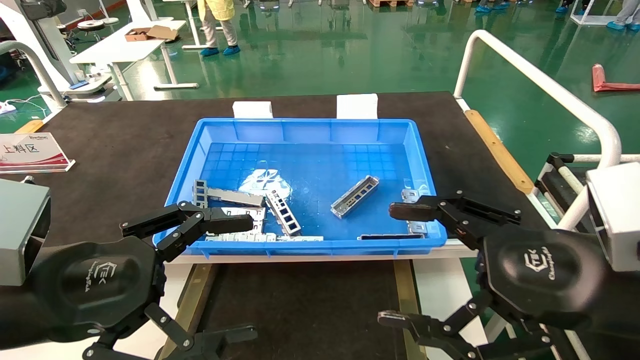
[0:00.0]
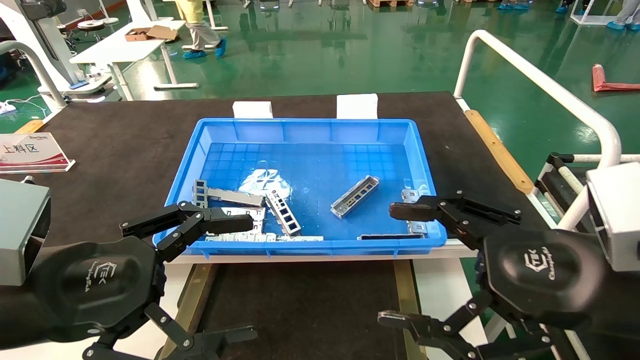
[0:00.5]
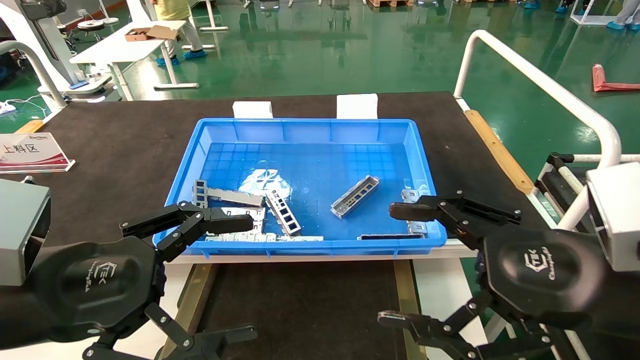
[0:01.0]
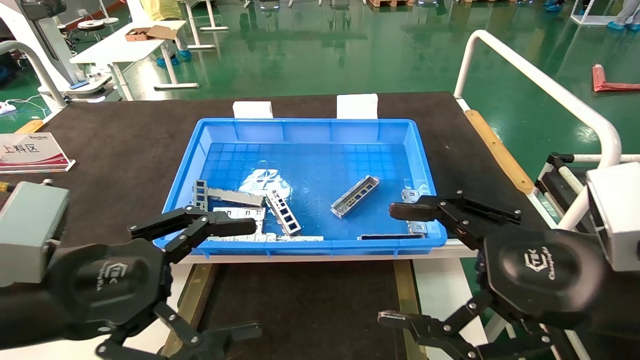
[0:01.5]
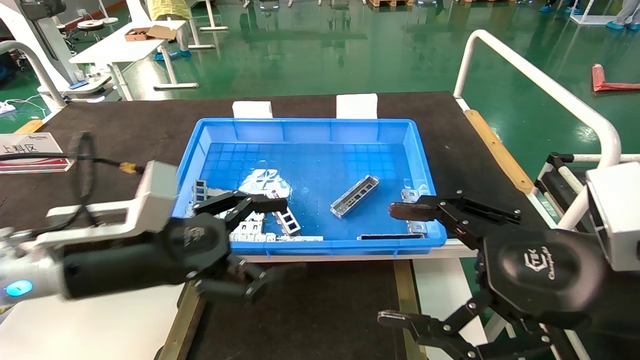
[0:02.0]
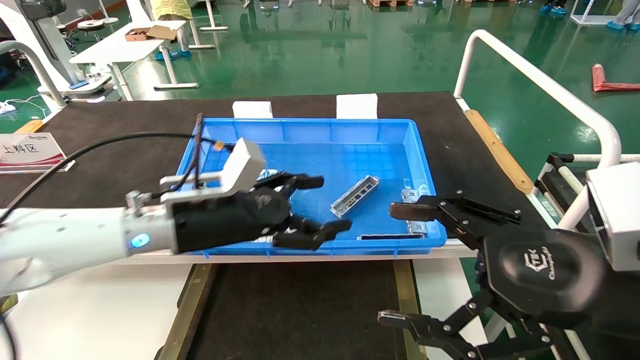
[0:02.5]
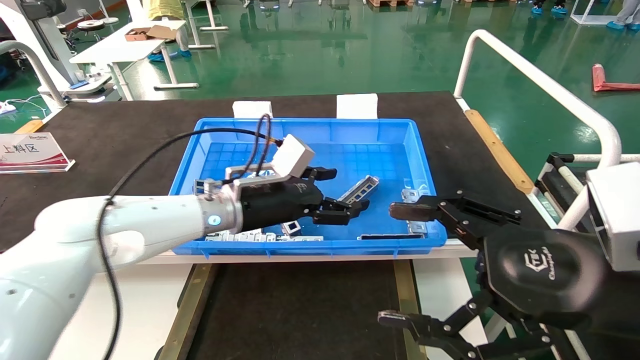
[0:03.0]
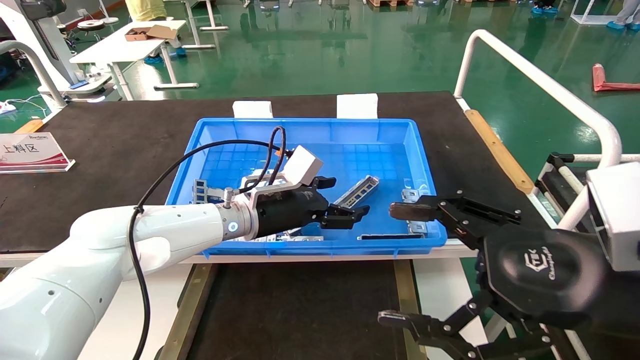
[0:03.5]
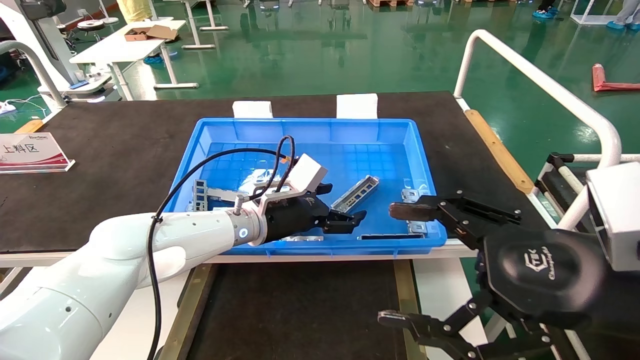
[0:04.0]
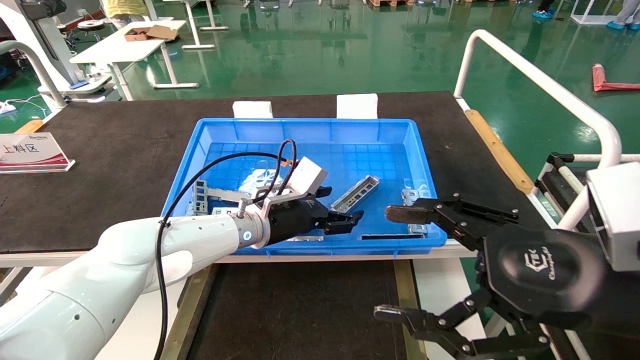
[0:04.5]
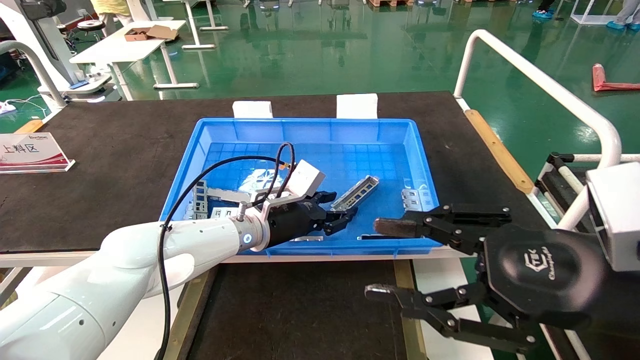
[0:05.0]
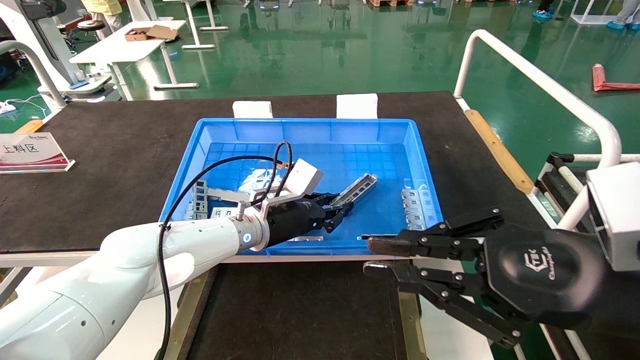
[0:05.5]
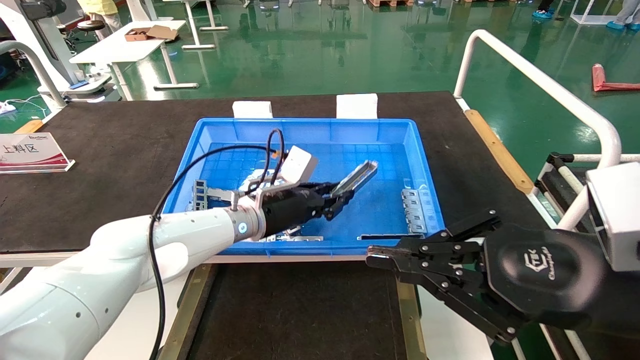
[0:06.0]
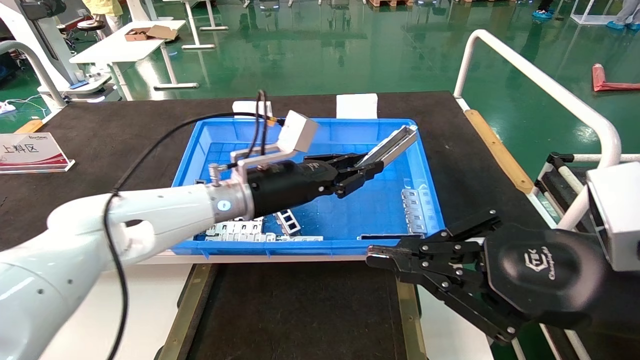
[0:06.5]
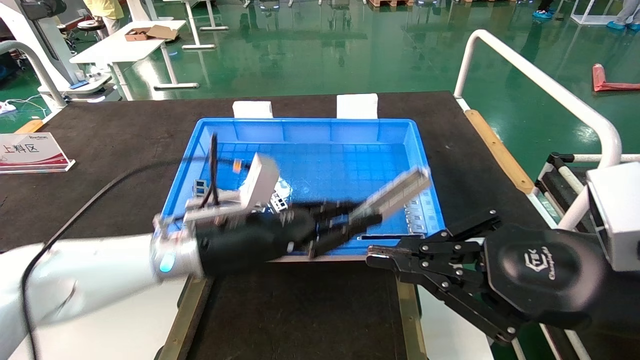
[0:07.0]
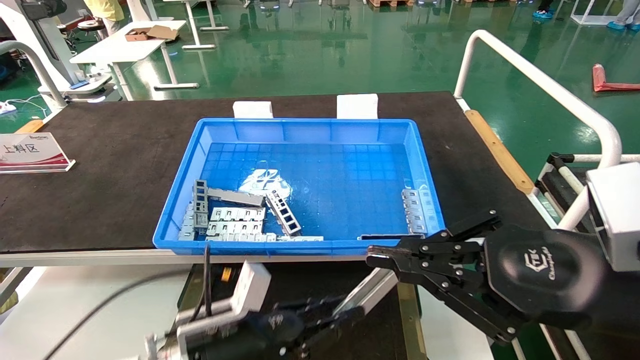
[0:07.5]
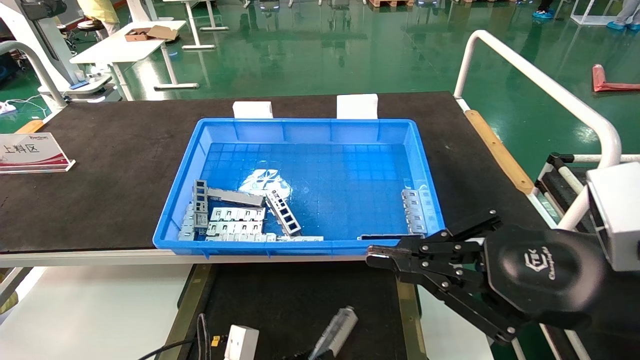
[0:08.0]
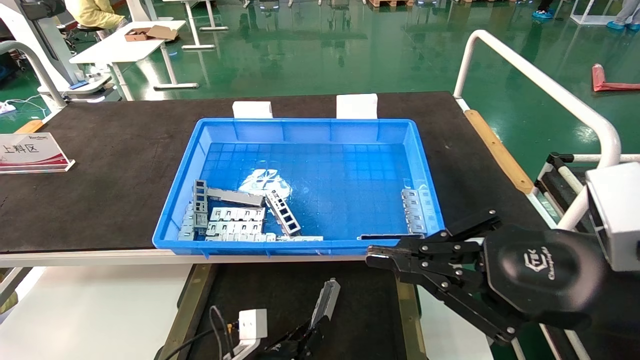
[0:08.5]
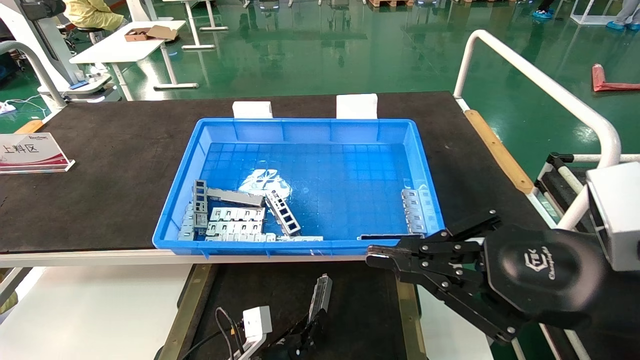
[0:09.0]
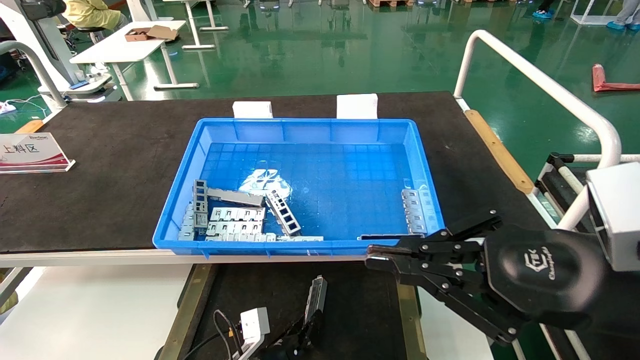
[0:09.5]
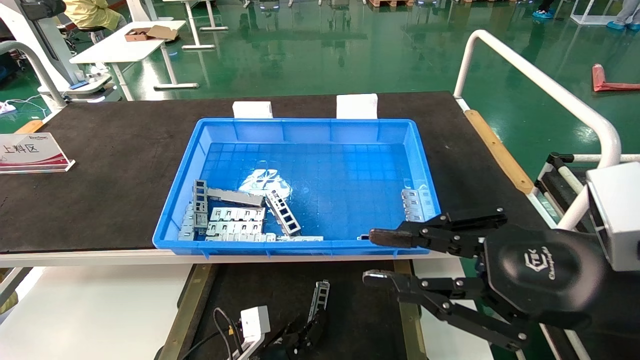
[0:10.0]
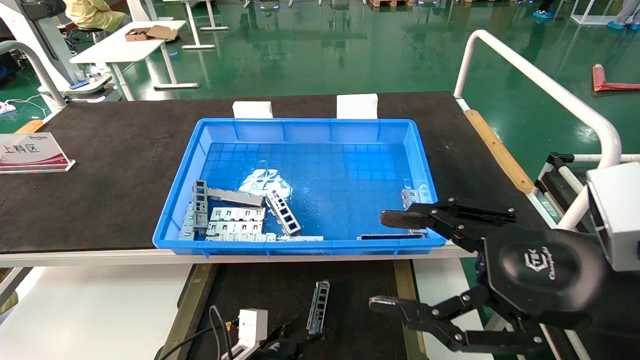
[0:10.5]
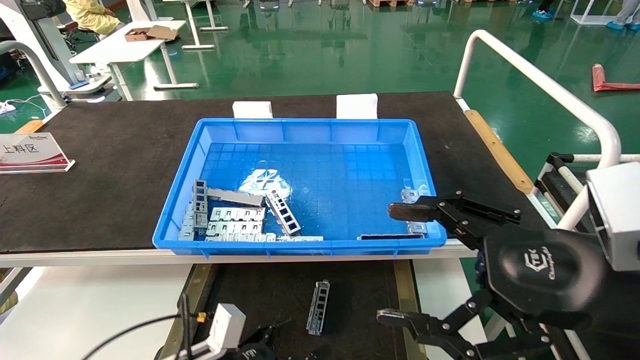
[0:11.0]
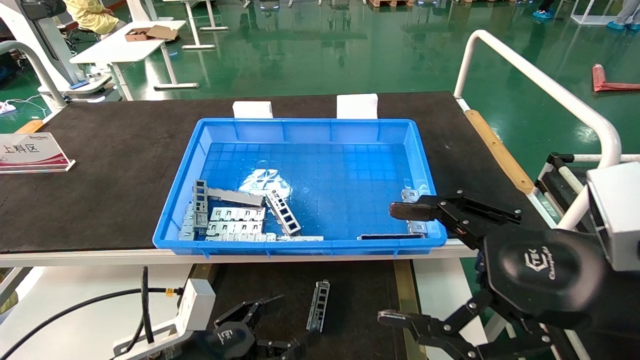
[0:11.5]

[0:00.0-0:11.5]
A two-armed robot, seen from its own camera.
Task of the whole recording: Grasp the part with one hand and place it on the black container.
Step, 0:01.5 to 0:05.0: Pick up the front USB bracket from the feeding area.
Step, 0:05.5 to 0:09.5: Place the front USB bracket into the box.
0:00.0 to 0:02.0: The left gripper moves forward, roughly 10 cm.
0:02.0 to 0:04.0: The left gripper is displaced forward and to the right by roughly 25 cm.
0:04.0 to 0:06.0: The left gripper closes its fingers. The right gripper closes up.
0:06.0 to 0:07.5: The left gripper shifts approximately 20 cm backward and downward.
0:07.5 to 0:09.5: The left gripper goes approximately 15 cm downward and forward.
0:09.5 to 0:11.5: The left gripper goes some 20 cm upward, to the left and backward, and opens its fingers, while the right gripper opens up.
